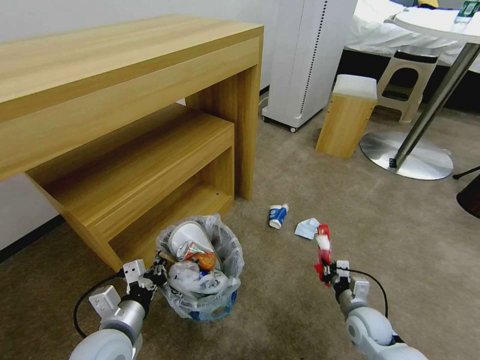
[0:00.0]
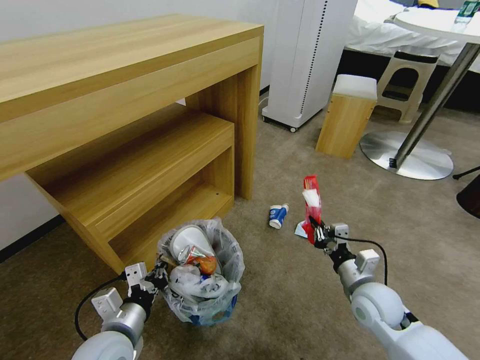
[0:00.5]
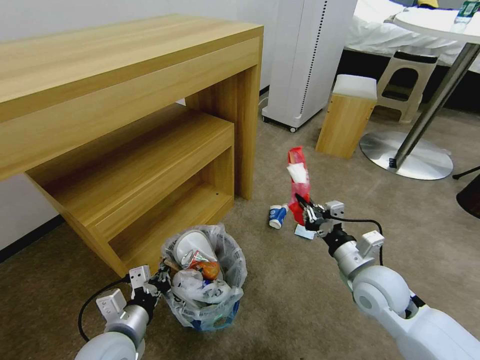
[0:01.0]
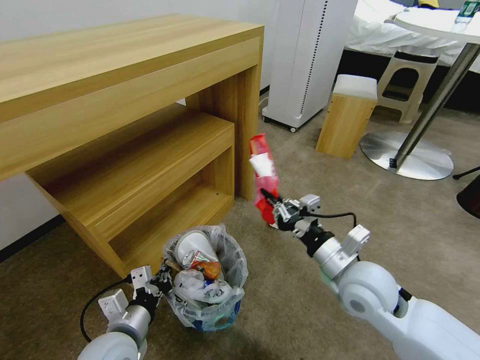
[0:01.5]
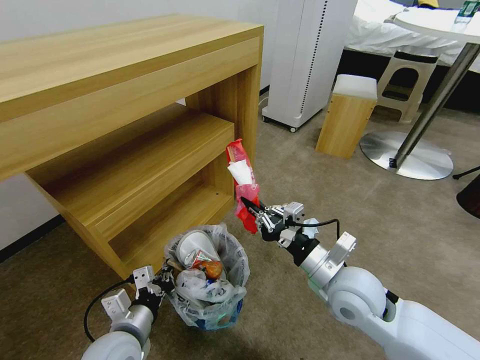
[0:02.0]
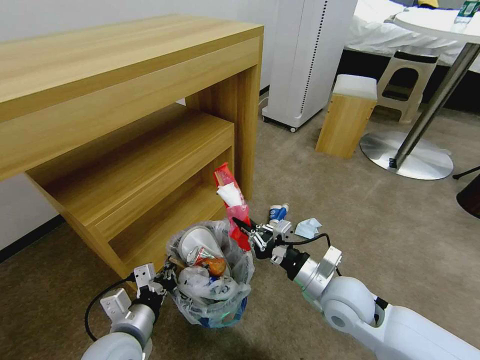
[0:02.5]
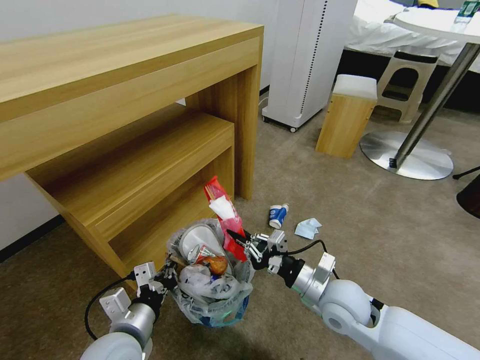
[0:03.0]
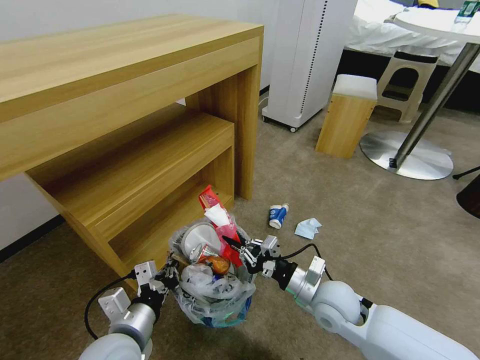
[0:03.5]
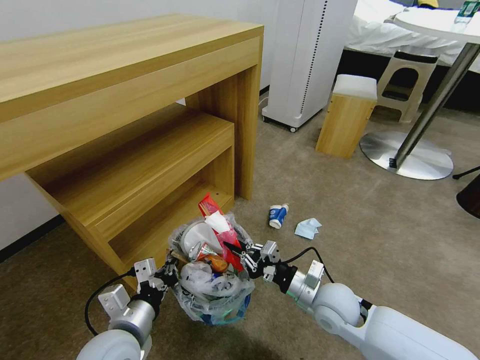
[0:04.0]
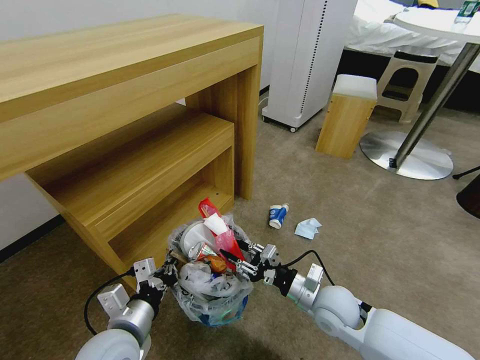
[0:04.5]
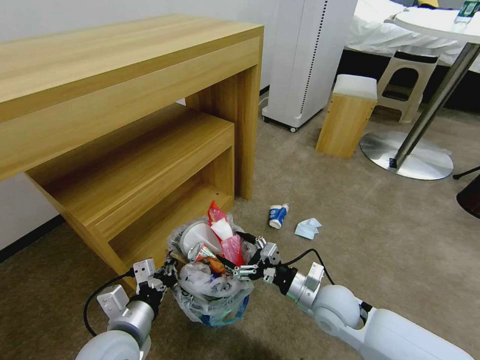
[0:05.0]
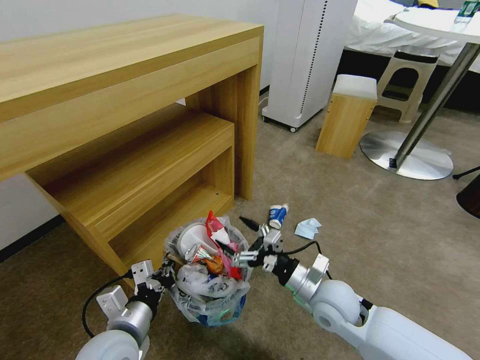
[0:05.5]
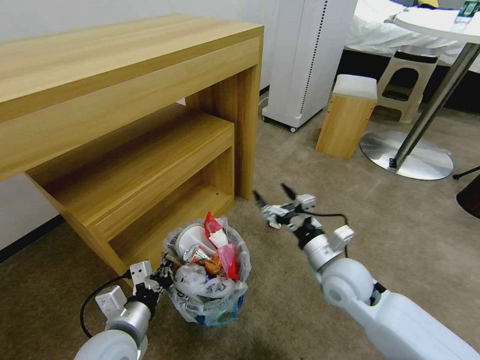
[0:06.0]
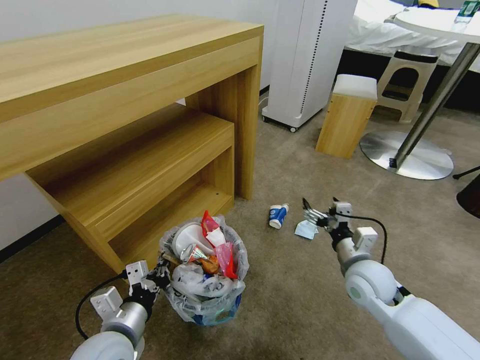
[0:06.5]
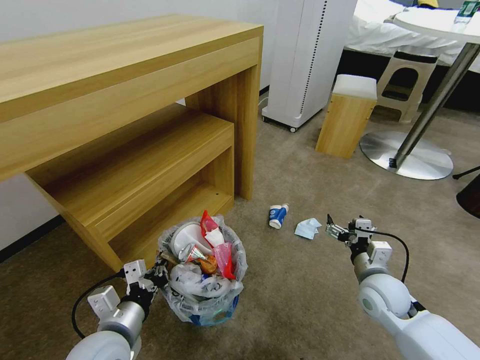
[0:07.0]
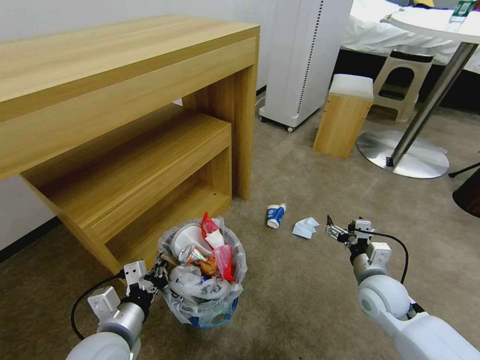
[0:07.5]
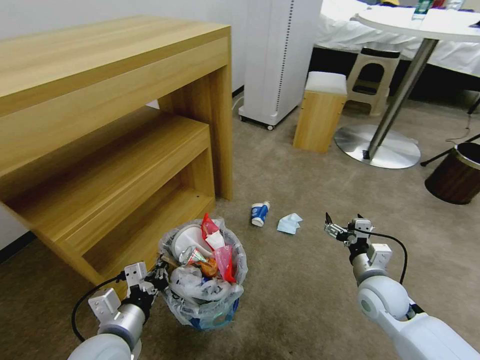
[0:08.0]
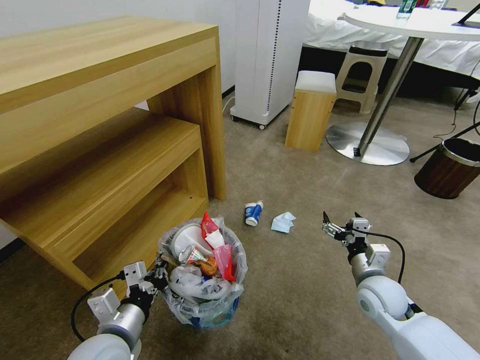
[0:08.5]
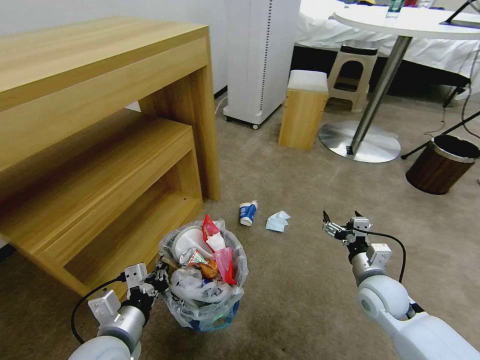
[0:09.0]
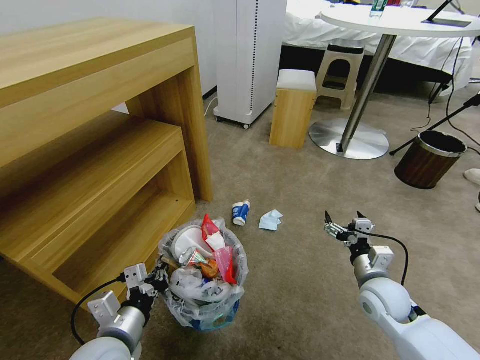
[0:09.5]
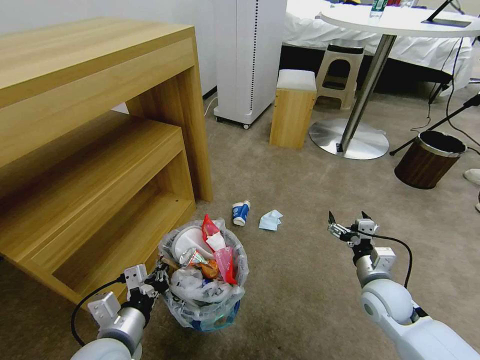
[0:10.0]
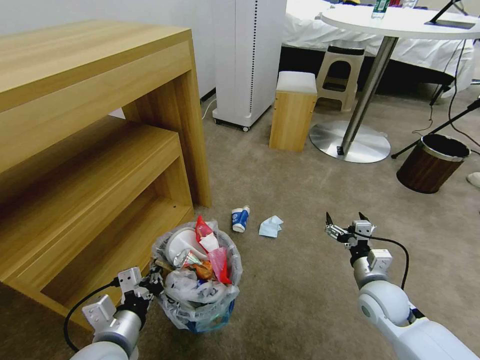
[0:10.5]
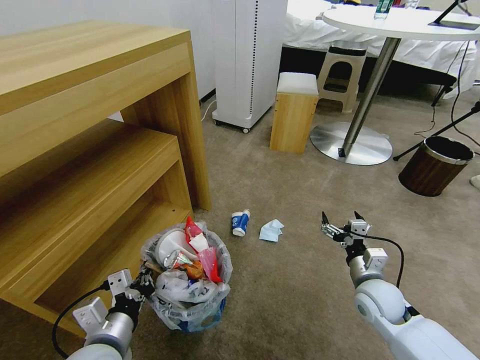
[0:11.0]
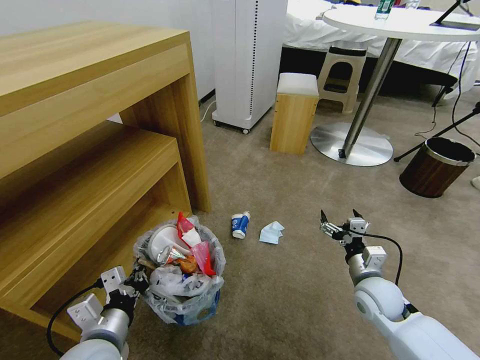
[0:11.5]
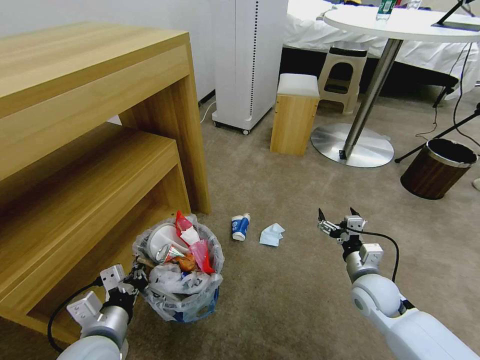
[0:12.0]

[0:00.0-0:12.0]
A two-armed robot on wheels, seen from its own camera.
Task of the whole recording: Pick up the trash bin and place the garbage on the floor into it.
0:00.0 to 0:02.0: The right gripper shifts about 25 cm upward and to the left.
0:02.0 to 0:04.0: The right gripper travels downward by about 10 cm.
0:04.0 to 0:06.0: The right gripper is displaced upward by some 5 cm, and opens up.
0:06.0 to 0:08.0: The right gripper moves to the right and downward, approximately 10 cm.

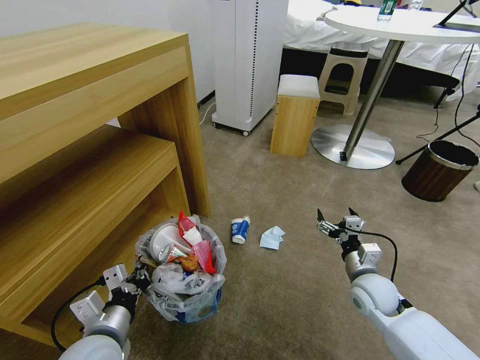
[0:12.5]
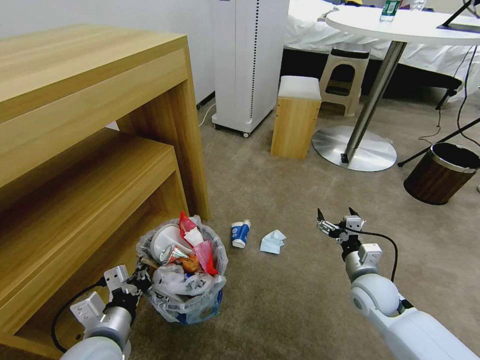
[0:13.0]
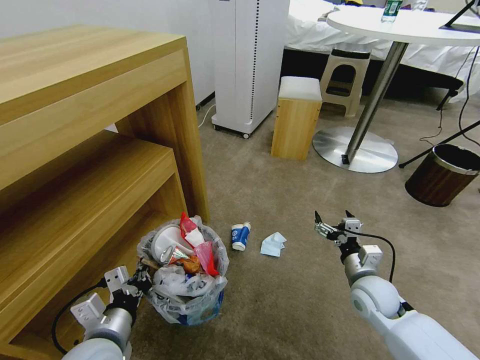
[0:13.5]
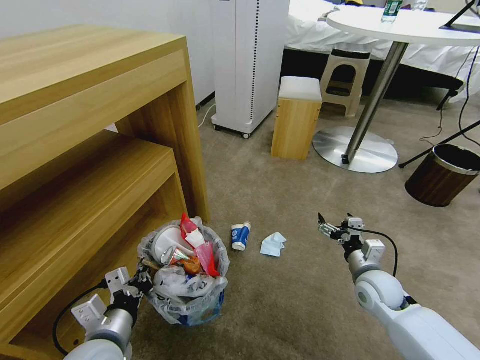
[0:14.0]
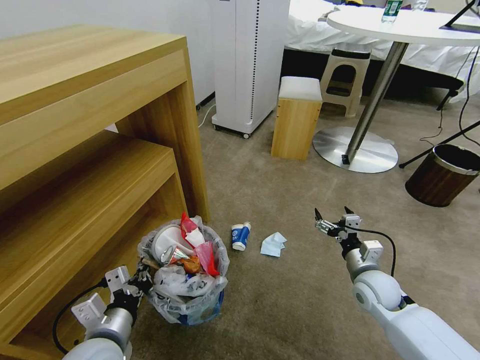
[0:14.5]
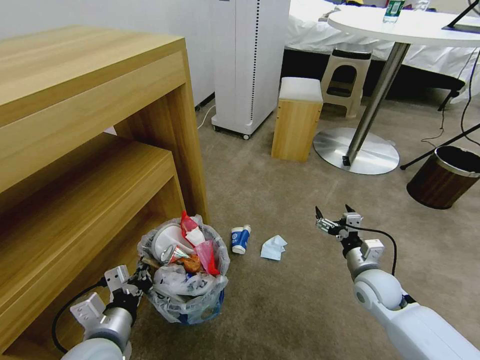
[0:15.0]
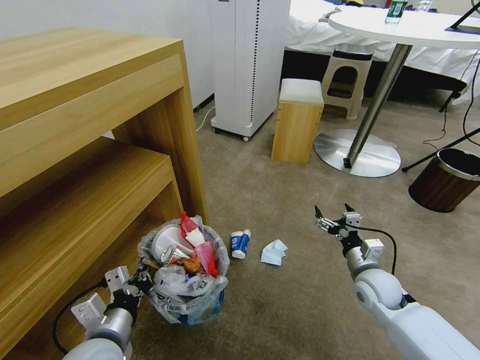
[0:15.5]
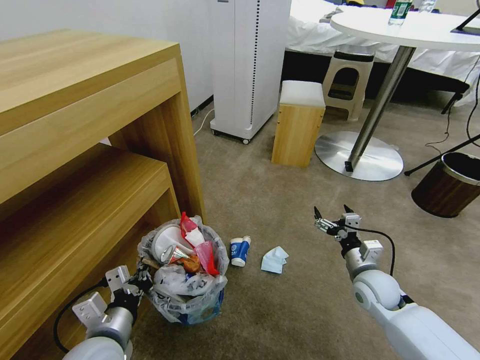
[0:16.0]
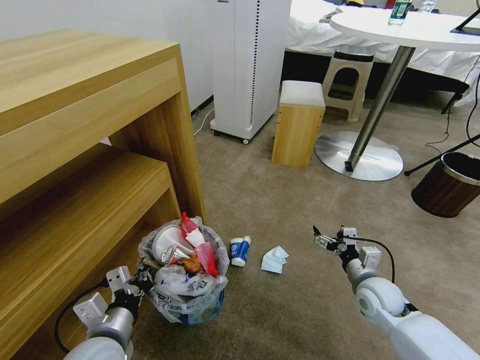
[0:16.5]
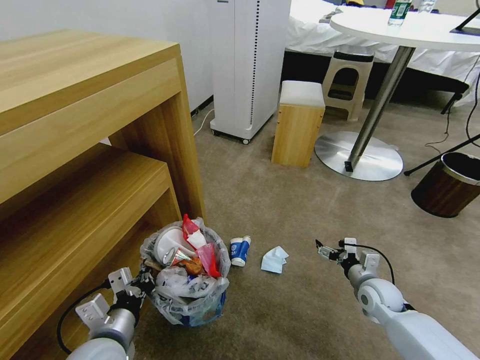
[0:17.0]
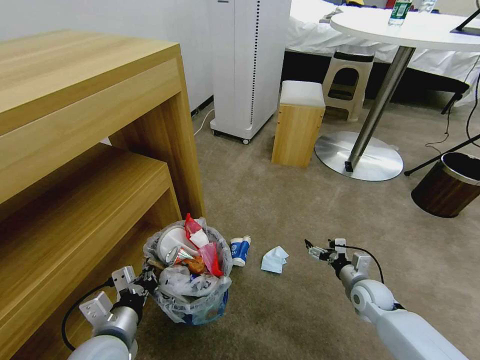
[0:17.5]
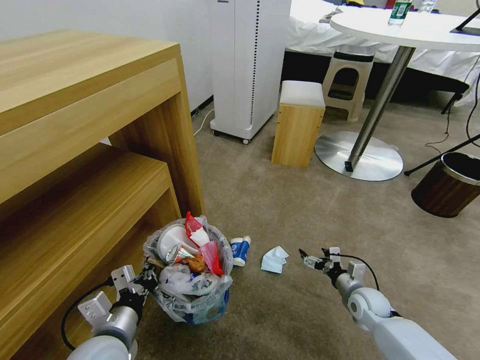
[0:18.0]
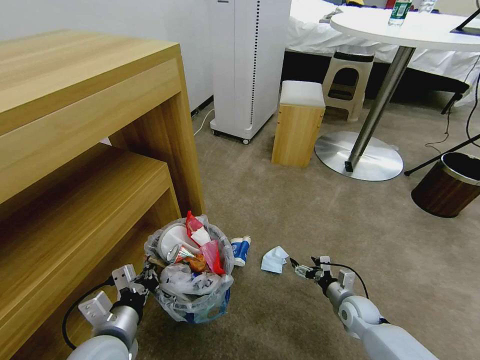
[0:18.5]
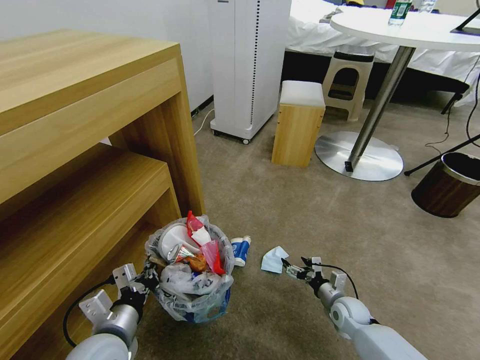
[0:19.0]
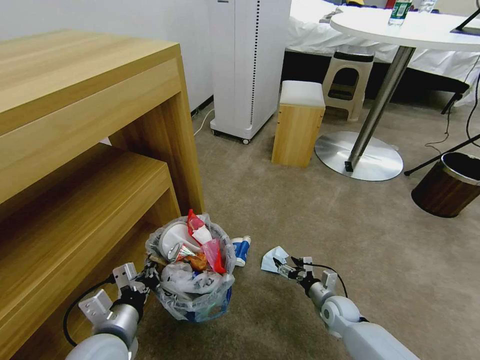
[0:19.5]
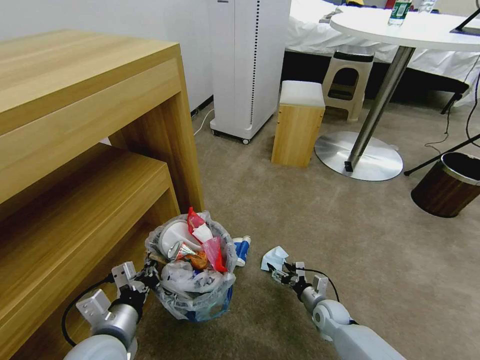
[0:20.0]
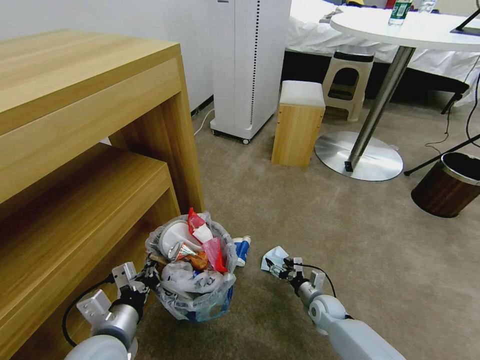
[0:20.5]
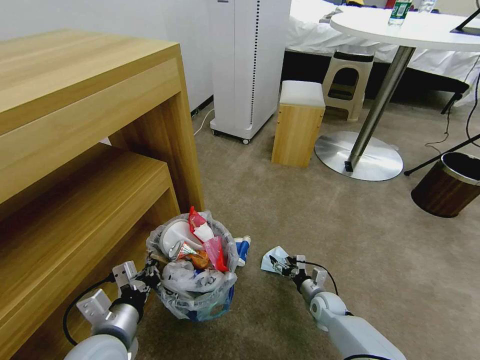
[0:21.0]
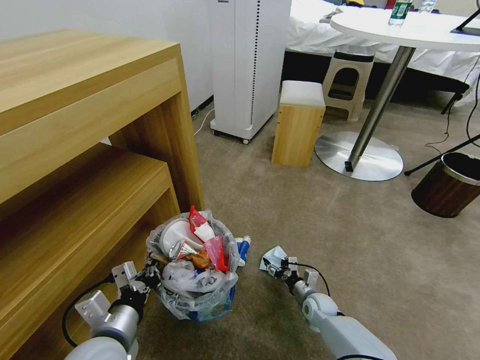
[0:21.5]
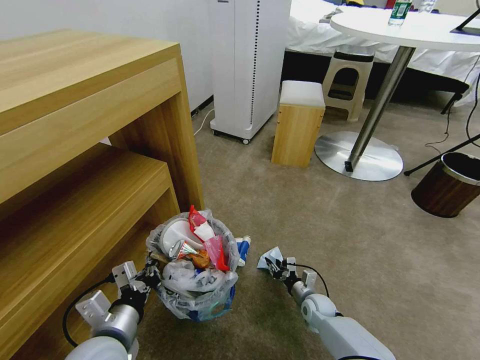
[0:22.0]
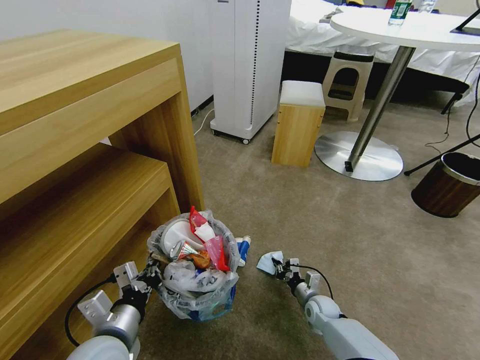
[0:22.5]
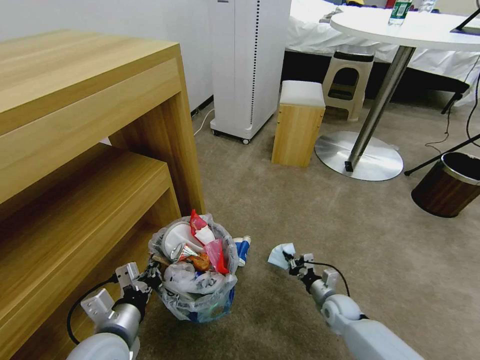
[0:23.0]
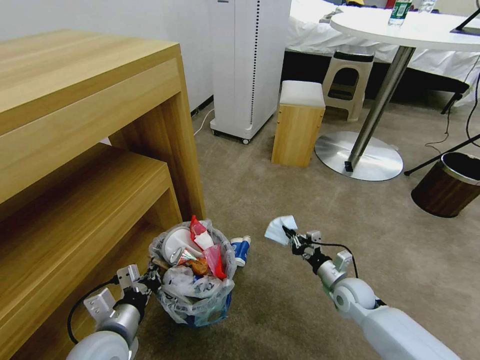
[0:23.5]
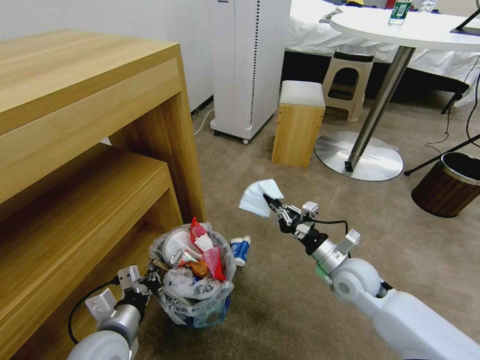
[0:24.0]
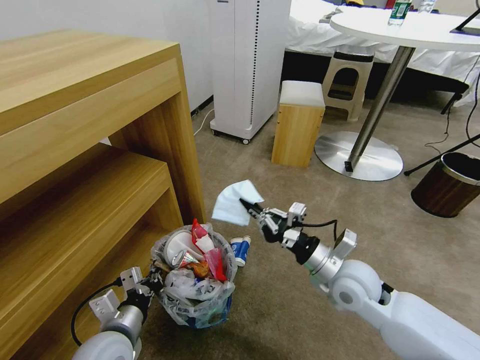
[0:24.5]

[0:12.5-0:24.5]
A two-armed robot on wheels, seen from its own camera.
Task of the whole recording: Pick up the trash bin and place the garbage on the floor into it.
0:12.5 to 0:14.5: There are only small adjustments of the grippers.
0:16.5 to 0:18.5: The right gripper shifts approximately 15 cm downward.
0:18.5 to 0:20.5: The right gripper moves to the left, roughly 5 cm.
0:20.5 to 0:22.5: The right gripper closes its fingers.
0:22.5 to 0:24.5: The right gripper goes some 30 cm upward.

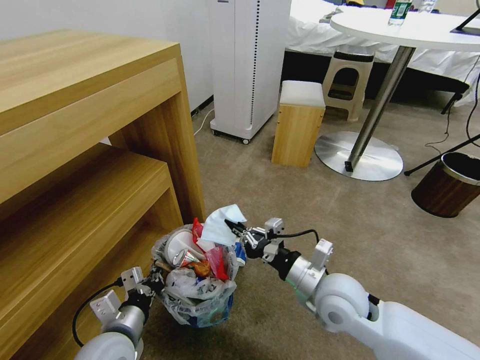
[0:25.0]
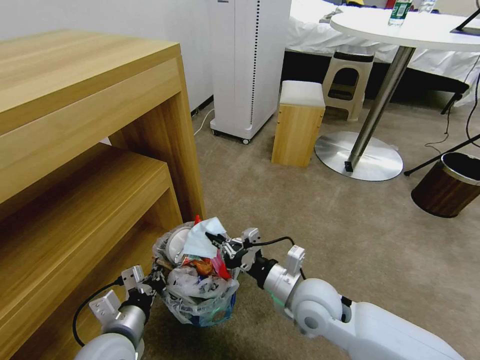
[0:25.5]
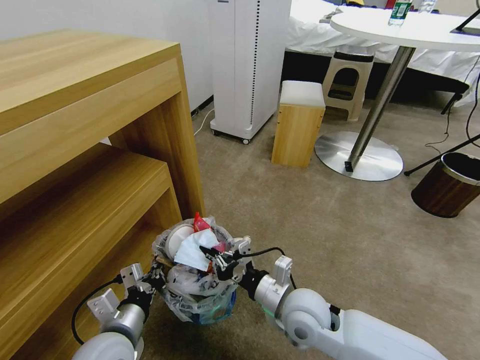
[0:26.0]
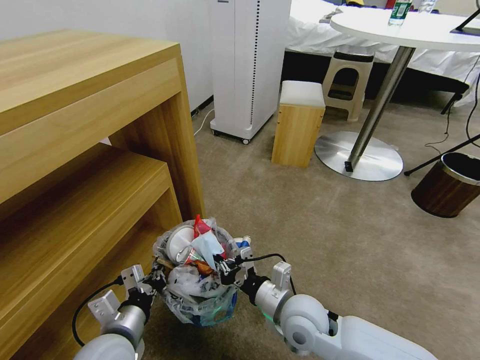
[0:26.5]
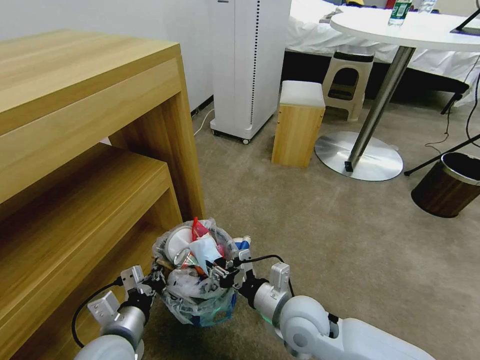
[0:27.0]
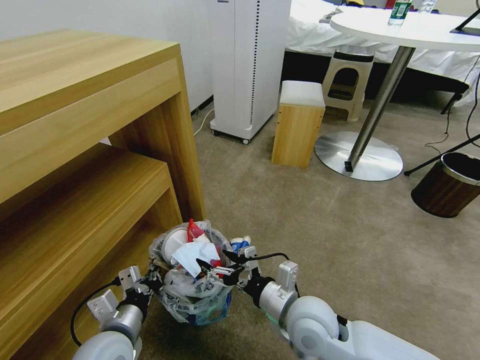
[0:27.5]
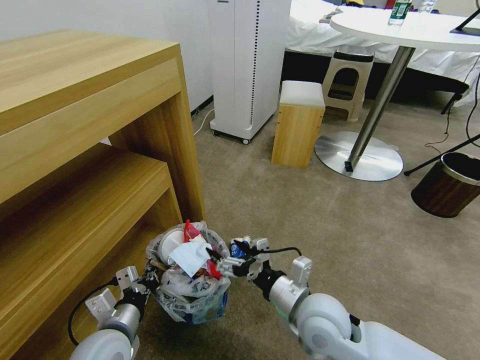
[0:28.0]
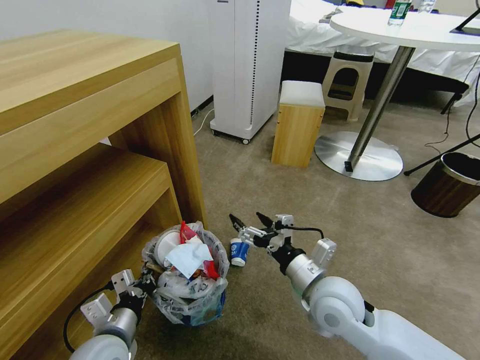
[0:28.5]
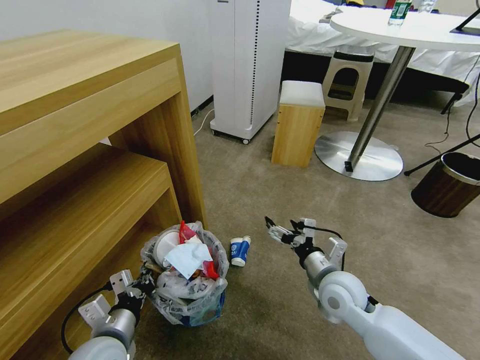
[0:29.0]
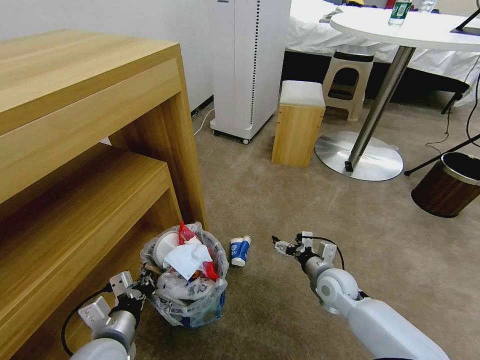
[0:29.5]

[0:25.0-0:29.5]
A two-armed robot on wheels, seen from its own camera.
Task of the whole recording: Pick up the trash bin and place the garbage on the floor into it.
0:25.0 to 0:27.0: The right gripper moves to the left, some 5 cm, and opens up.
0:27.0 to 0:29.5: The right gripper shifts some 20 cm to the right, forward and downward, and opens.
